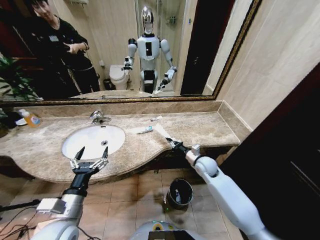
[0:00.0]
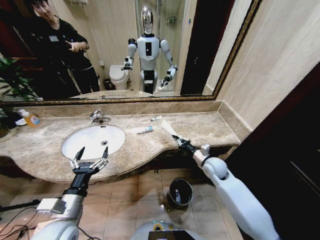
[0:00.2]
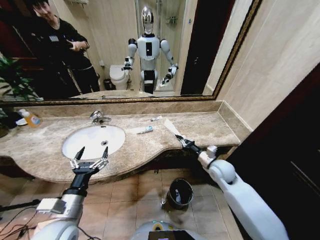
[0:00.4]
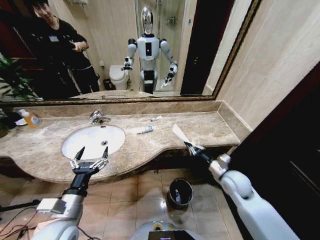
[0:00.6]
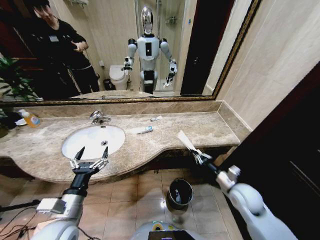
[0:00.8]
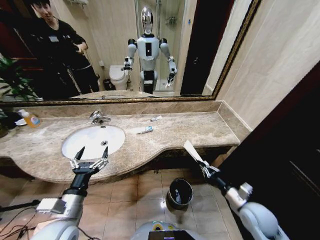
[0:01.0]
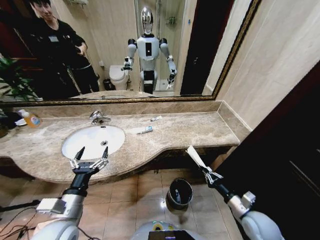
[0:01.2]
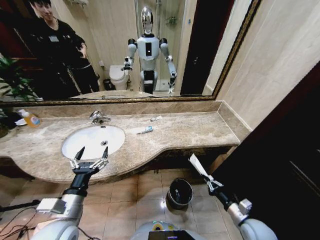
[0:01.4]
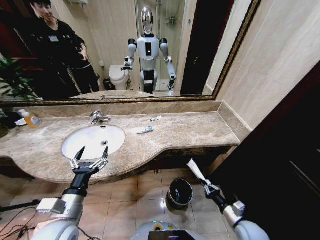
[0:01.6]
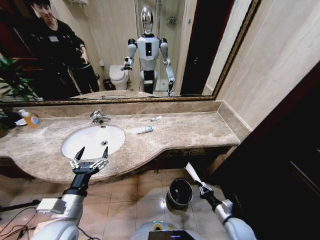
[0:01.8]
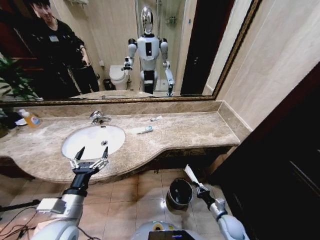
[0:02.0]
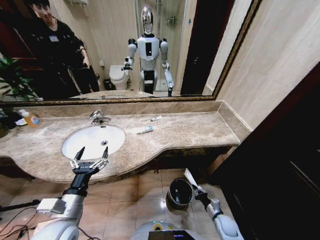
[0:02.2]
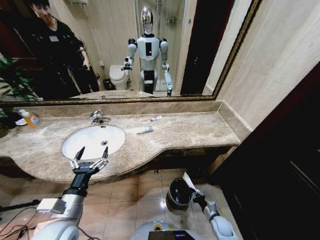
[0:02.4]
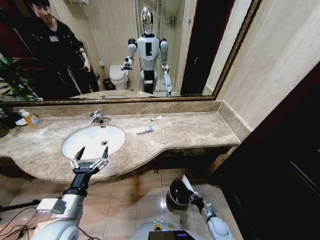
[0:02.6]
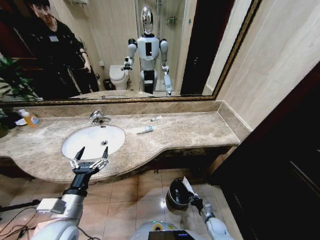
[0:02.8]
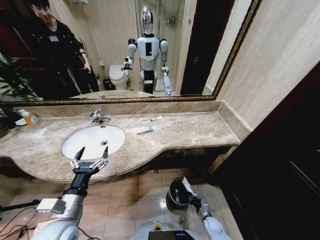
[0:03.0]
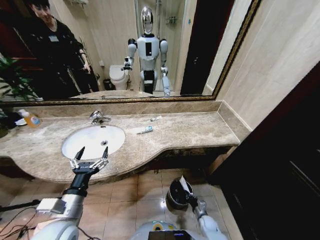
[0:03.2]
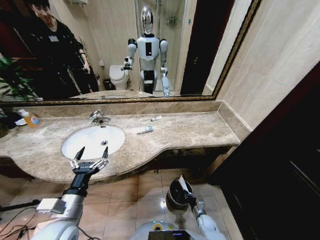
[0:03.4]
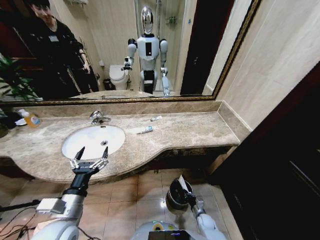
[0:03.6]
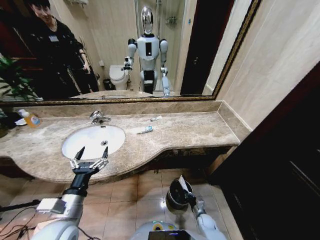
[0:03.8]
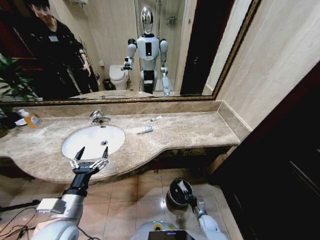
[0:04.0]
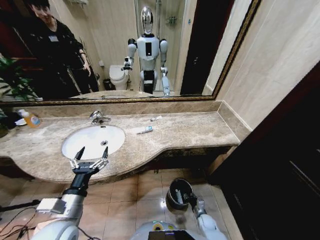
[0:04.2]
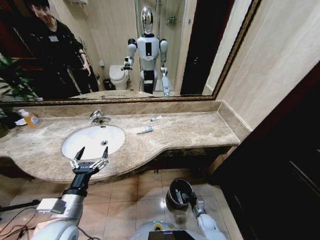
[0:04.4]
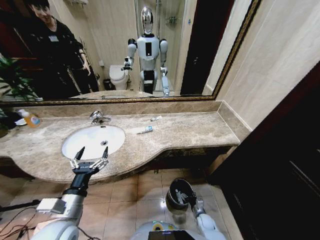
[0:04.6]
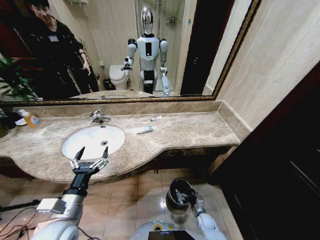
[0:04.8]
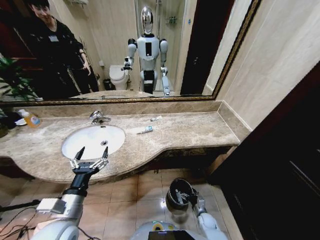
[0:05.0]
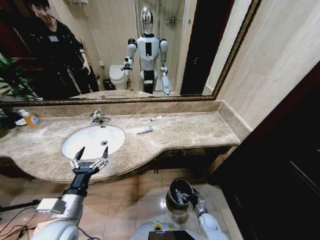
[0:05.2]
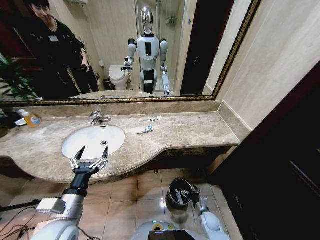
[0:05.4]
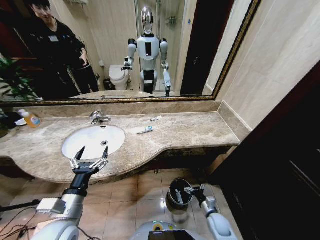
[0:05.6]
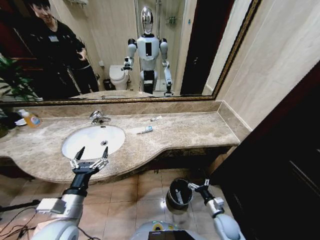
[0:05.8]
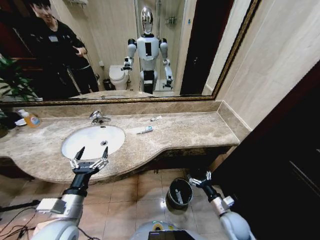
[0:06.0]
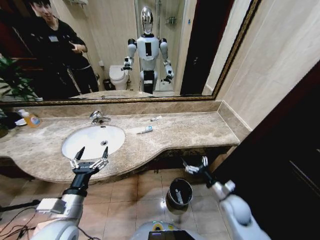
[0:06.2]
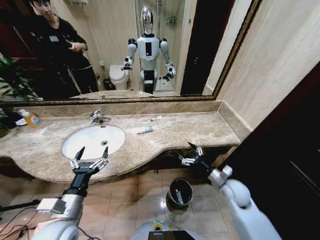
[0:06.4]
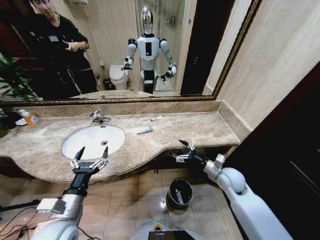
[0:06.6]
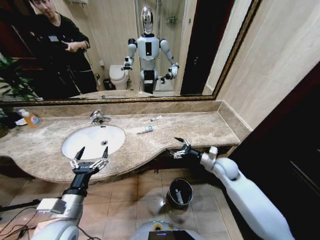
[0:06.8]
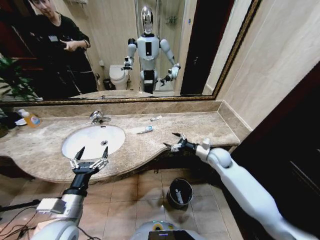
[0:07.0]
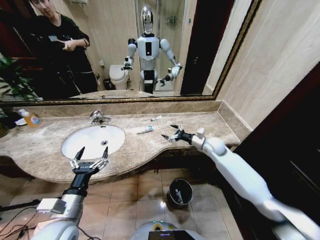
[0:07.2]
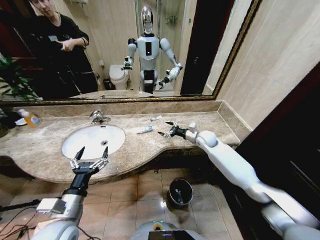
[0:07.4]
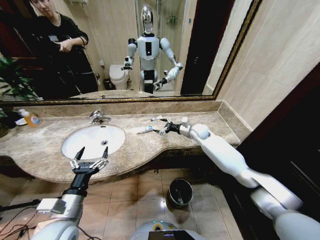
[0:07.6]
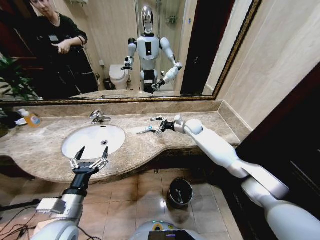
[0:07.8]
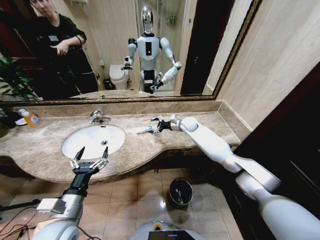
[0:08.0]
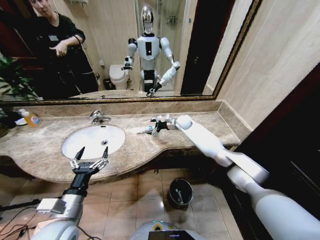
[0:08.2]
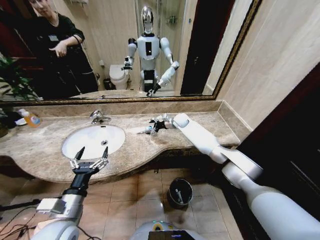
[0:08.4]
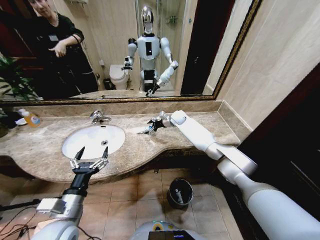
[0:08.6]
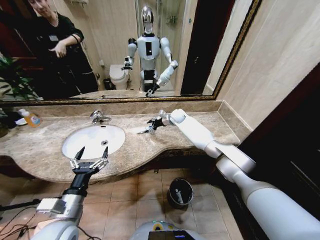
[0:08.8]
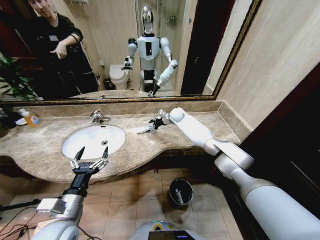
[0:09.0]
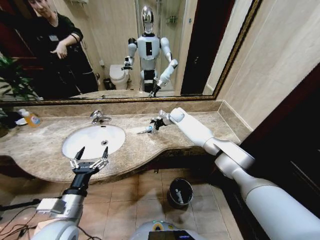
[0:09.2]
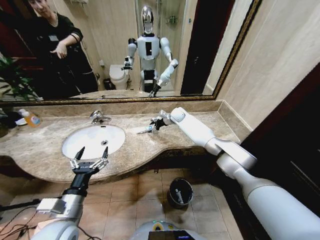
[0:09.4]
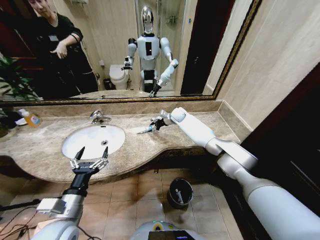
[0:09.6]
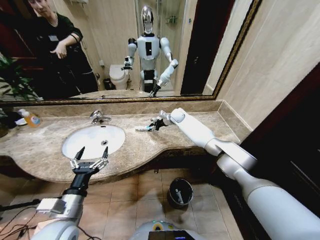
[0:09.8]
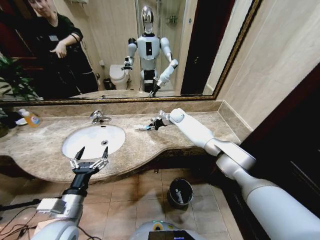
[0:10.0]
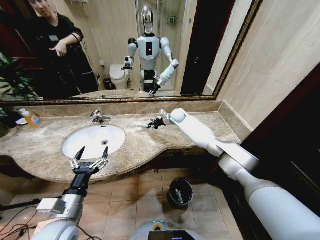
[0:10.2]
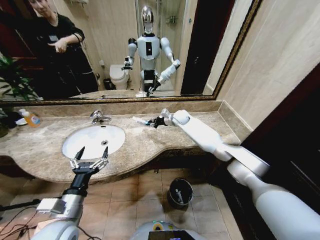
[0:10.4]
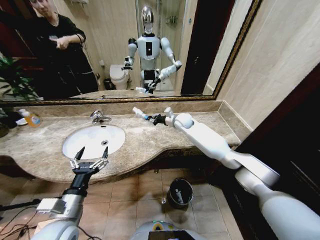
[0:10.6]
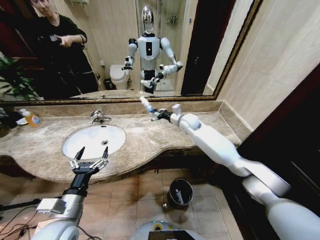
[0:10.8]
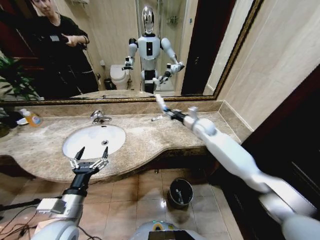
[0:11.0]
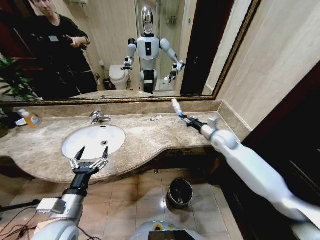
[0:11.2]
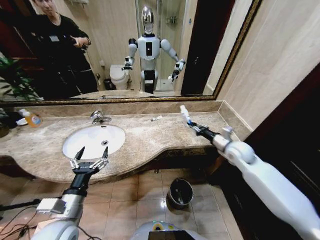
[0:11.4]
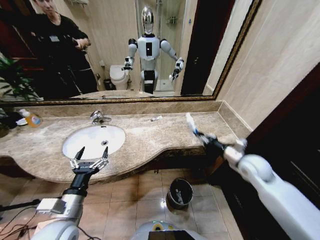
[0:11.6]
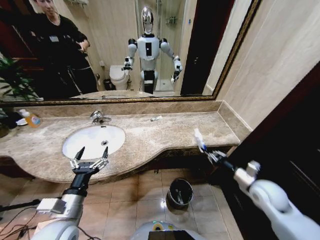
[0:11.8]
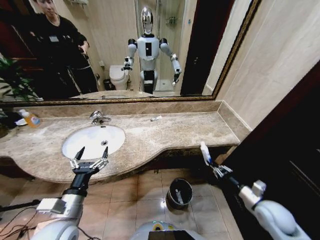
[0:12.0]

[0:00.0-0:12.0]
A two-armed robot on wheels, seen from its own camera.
Task of the whole recording: Pick up the trash from the sink and place it in the trash bin.
0:00.0 to 0:01.6: The right gripper moves backward, to the right and downward, approximately 30 cm.
0:01.6 to 0:03.0: The right gripper moves downward, roughly 20 cm.
0:03.0 to 0:04.4: The right gripper opens.
0:04.4 to 0:06.0: The right gripper is displaced upward by some 20 cm, and opens up.
0:06.0 to 0:07.6: The right gripper shifts about 40 cm forward and upward.
0:07.6 to 0:09.0: The right gripper travels forward and to the left by some 15 cm.
0:09.0 to 0:10.4: The right gripper closes up.
0:10.4 to 0:12.0: The right gripper heads backward and to the right, covering approximately 50 cm.

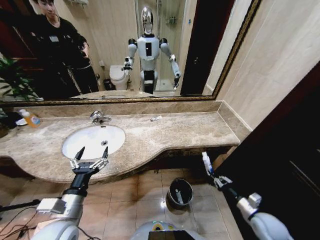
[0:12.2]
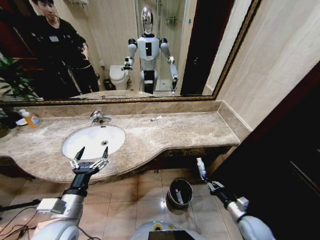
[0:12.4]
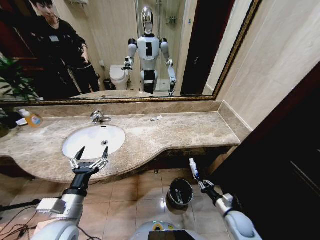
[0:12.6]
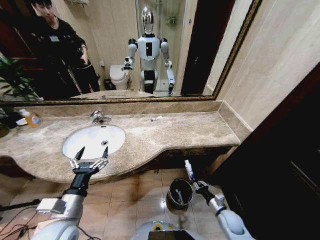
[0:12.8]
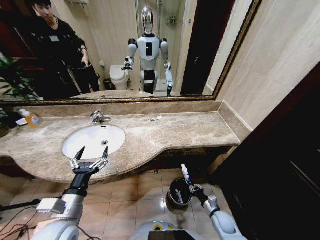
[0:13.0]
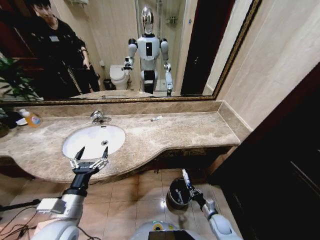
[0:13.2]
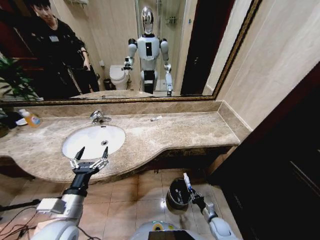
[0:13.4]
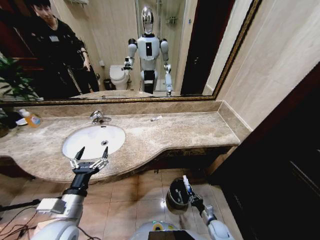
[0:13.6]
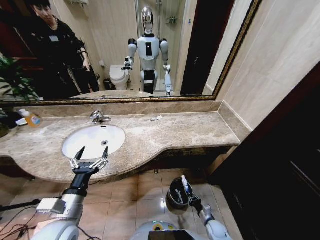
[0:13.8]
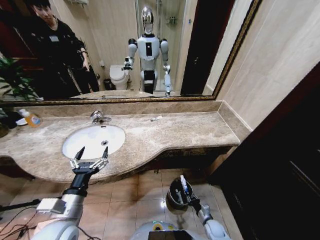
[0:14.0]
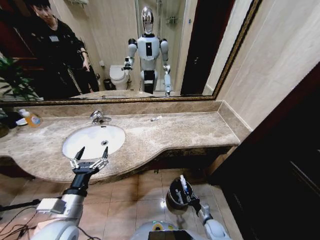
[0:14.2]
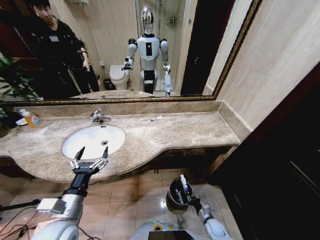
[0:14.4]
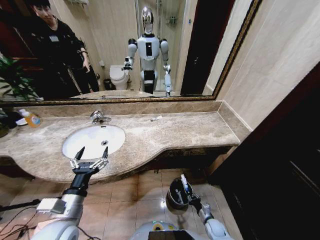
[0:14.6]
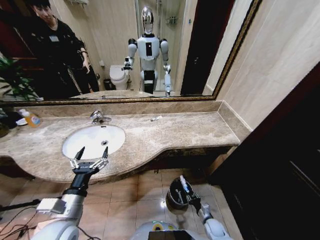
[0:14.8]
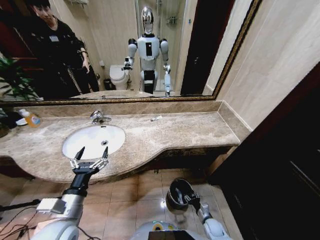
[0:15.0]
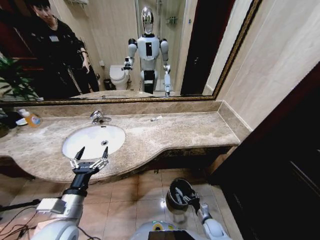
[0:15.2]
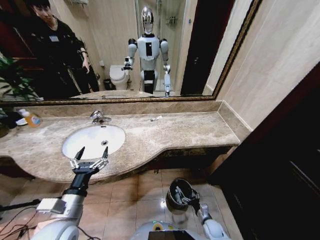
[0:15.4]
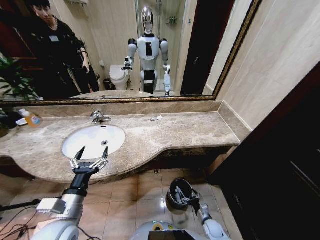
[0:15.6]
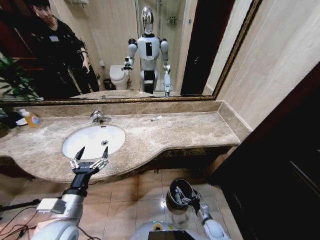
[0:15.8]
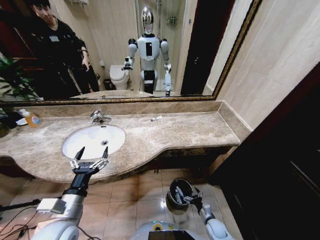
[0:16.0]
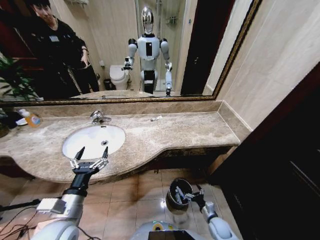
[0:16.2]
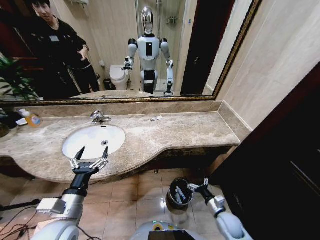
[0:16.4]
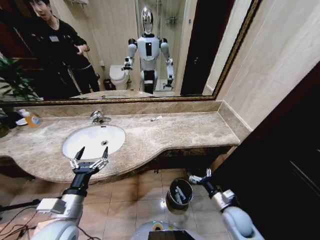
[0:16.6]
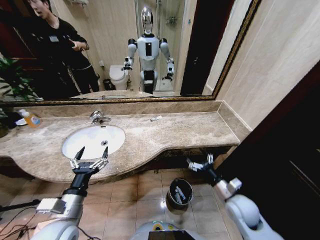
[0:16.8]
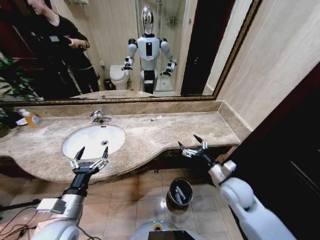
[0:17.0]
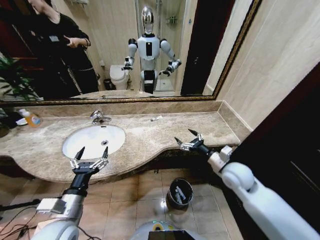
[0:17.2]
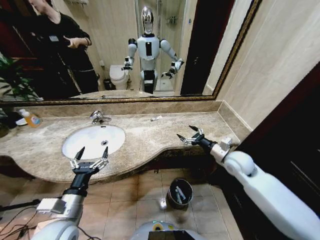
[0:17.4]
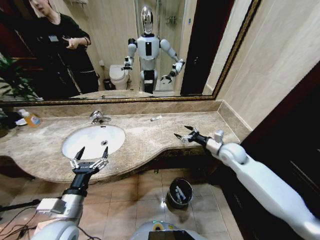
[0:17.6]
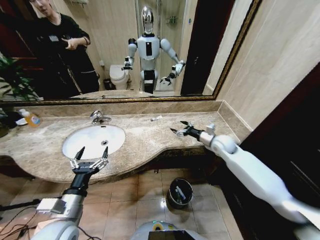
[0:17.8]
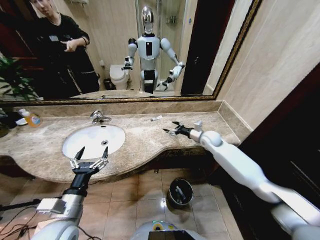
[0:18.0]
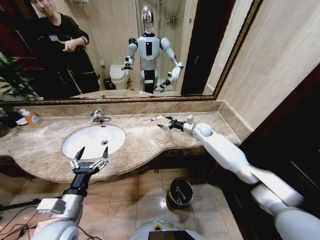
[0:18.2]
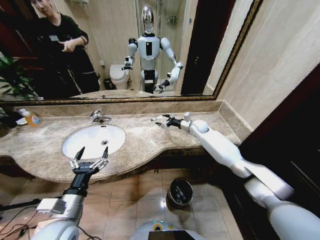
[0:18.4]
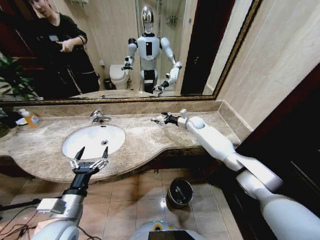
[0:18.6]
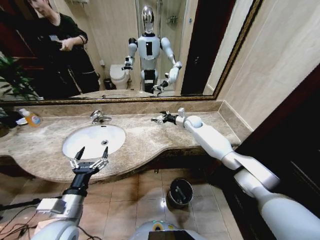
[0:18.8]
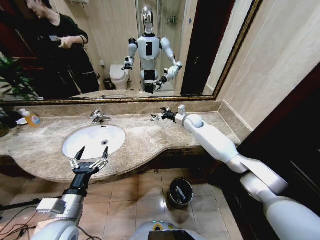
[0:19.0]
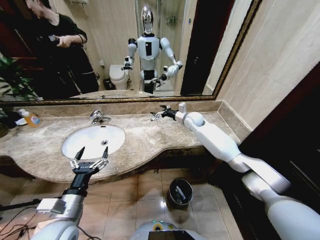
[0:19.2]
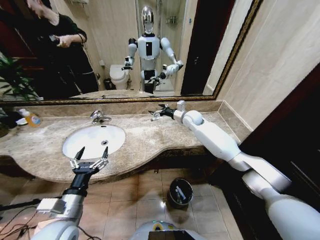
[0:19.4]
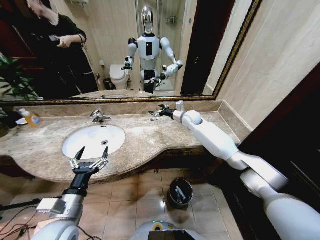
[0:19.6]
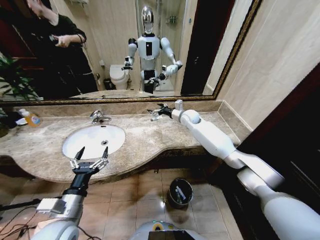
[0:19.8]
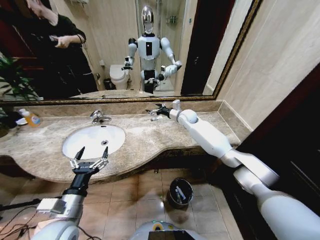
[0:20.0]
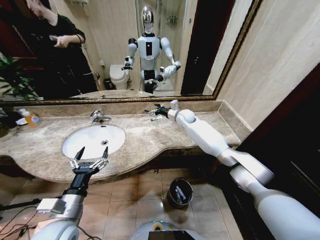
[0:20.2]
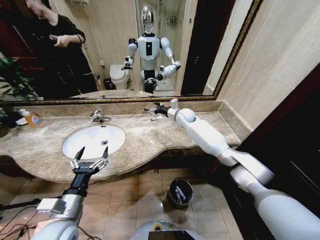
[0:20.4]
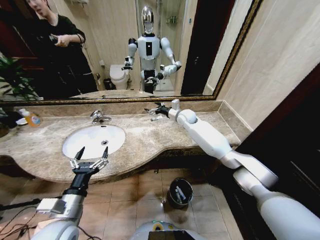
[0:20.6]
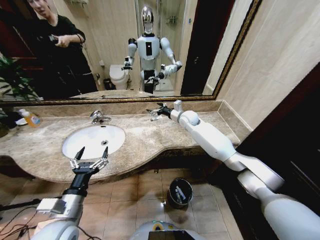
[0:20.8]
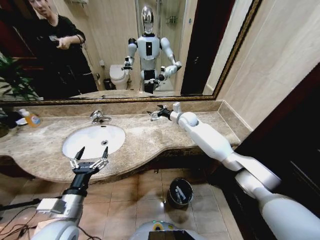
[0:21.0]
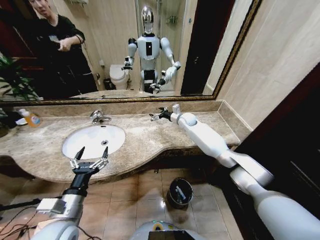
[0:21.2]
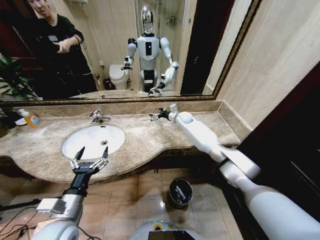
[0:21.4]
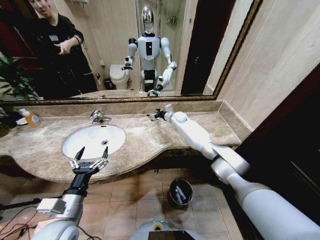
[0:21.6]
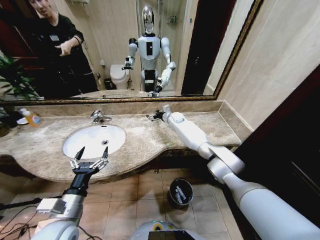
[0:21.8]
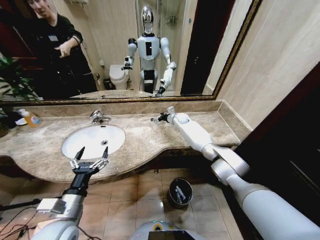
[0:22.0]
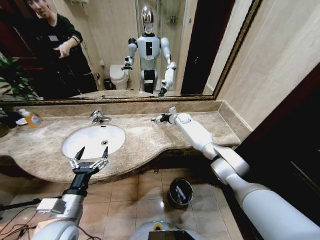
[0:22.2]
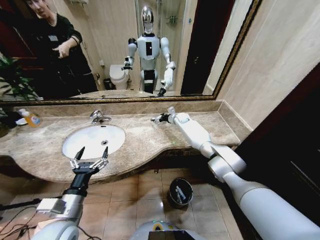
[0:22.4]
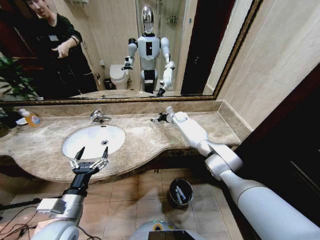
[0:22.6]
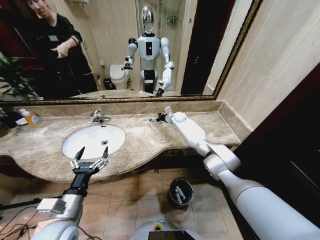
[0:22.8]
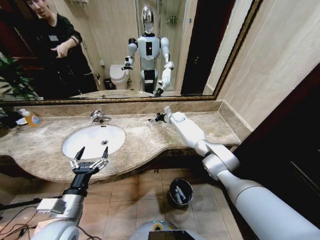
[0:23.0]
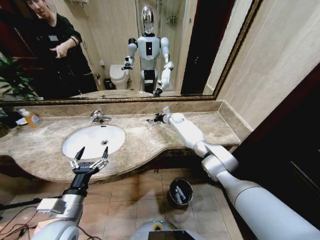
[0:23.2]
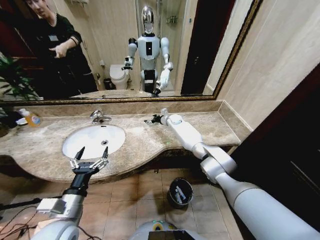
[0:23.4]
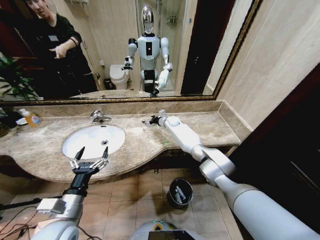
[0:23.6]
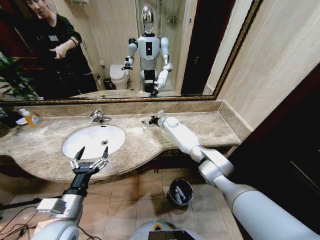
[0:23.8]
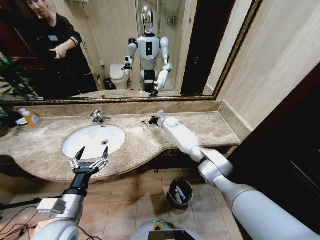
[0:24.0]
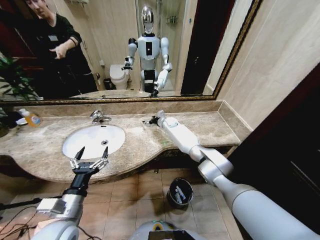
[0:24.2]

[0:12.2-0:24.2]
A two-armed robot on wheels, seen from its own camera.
Task of the whole recording: Pick up the trash from the sink and place it in the trash bin.
0:12.2 to 0:13.8: The right gripper shifts roughly 25 cm downward and to the left.
0:13.8 to 0:15.2: The right gripper opens its fingers.
0:15.2 to 0:16.6: The right gripper moves upward, roughly 20 cm.
0:16.6 to 0:18.2: The right gripper shifts roughly 40 cm forward and upward.
0:18.2 to 0:19.8: The right gripper is displaced to the left and upward by about 10 cm.
0:19.8 to 0:21.2: The grippers stay close to where they were, moving slightly.
0:21.2 to 0:22.6: The right gripper goes some 10 cm forward.
0:22.6 to 0:24.2: The right gripper travels to the left by some 5 cm.
